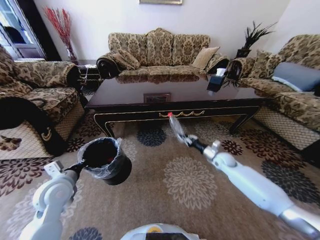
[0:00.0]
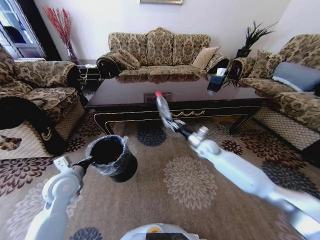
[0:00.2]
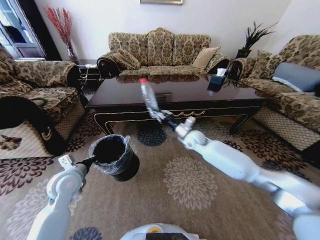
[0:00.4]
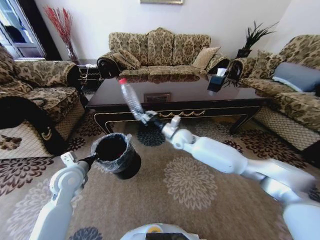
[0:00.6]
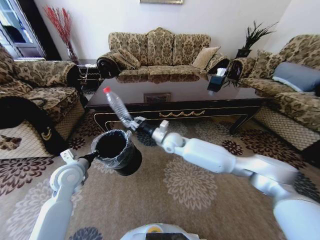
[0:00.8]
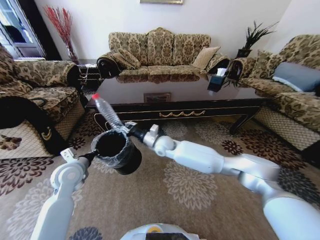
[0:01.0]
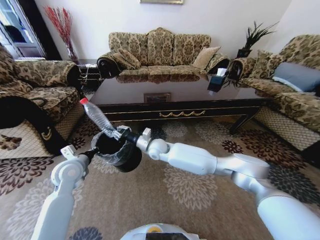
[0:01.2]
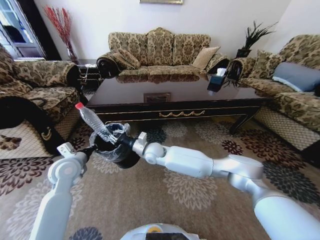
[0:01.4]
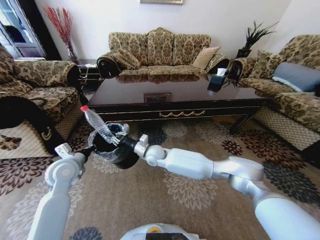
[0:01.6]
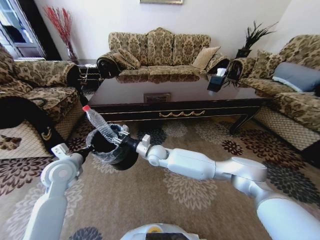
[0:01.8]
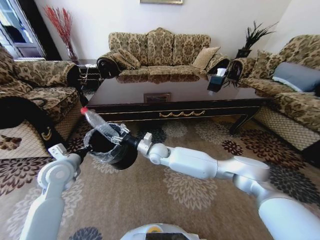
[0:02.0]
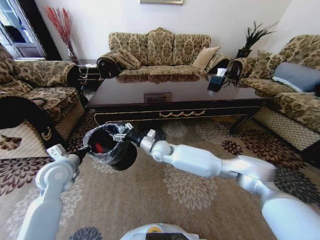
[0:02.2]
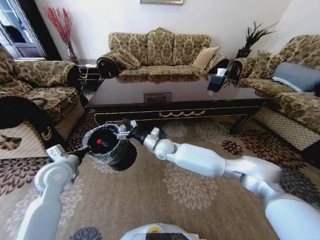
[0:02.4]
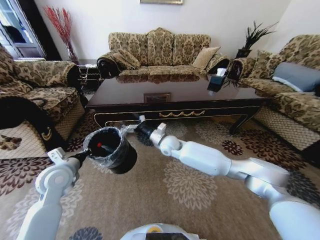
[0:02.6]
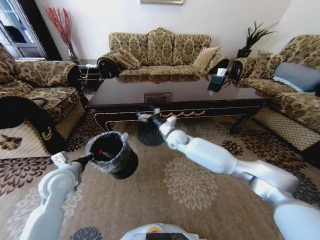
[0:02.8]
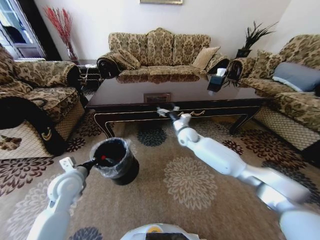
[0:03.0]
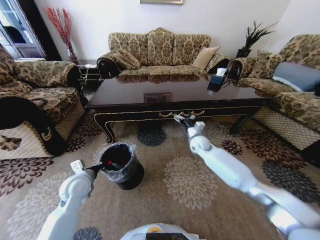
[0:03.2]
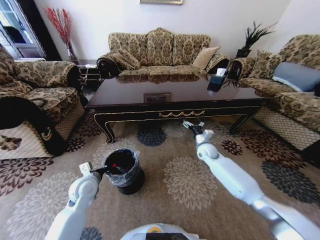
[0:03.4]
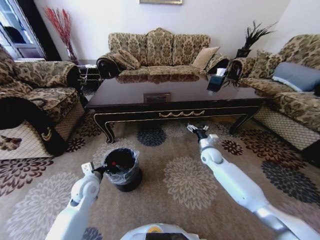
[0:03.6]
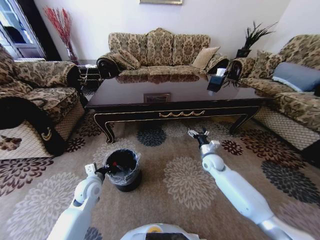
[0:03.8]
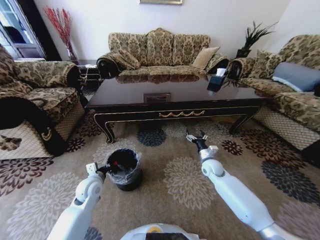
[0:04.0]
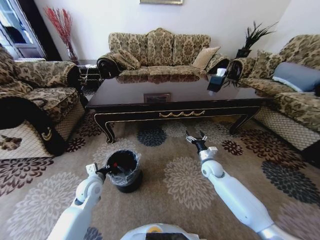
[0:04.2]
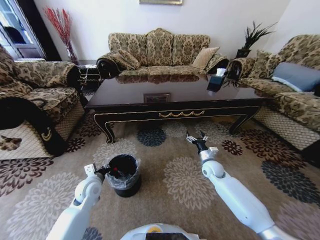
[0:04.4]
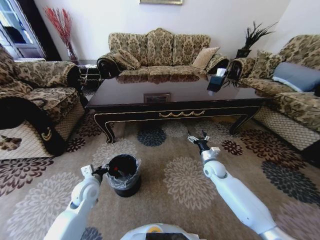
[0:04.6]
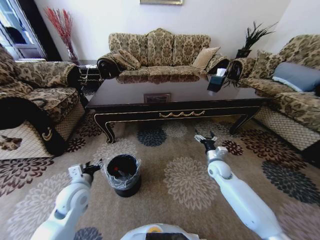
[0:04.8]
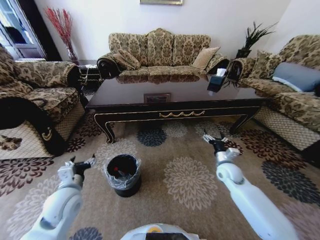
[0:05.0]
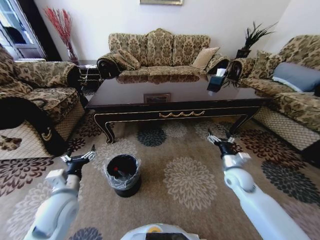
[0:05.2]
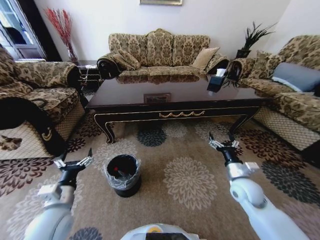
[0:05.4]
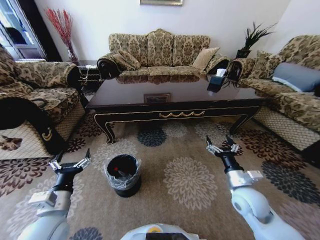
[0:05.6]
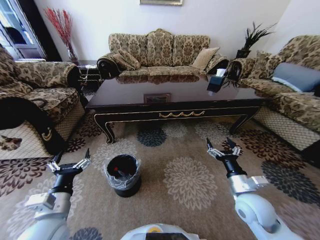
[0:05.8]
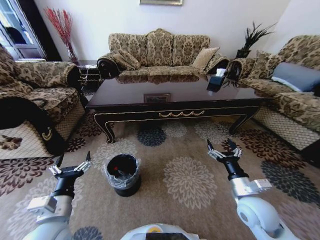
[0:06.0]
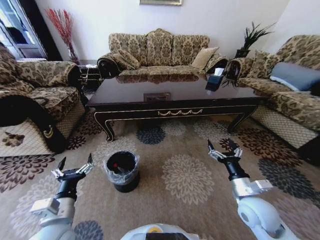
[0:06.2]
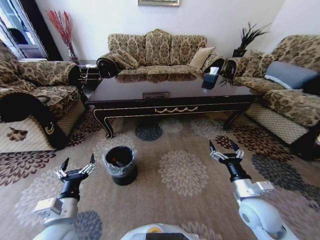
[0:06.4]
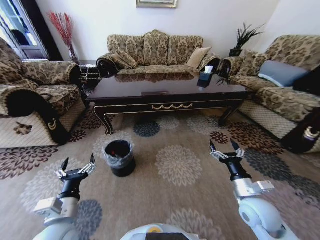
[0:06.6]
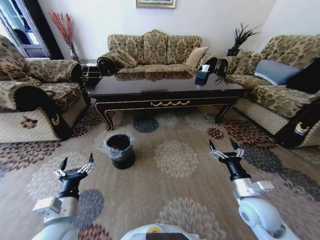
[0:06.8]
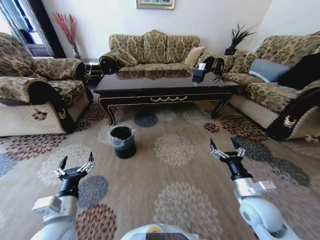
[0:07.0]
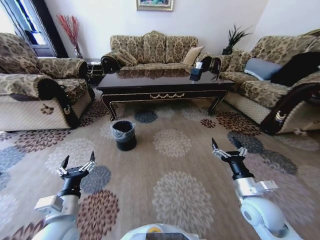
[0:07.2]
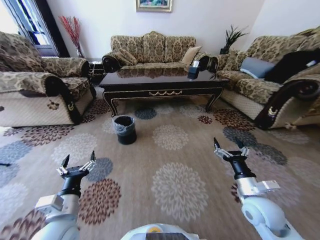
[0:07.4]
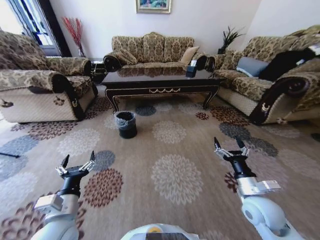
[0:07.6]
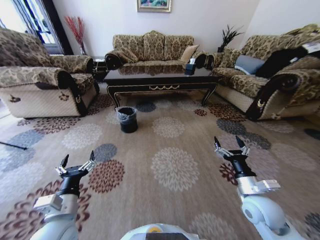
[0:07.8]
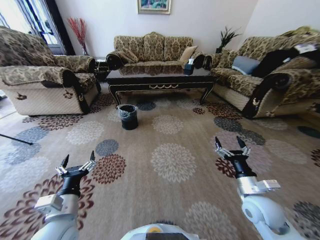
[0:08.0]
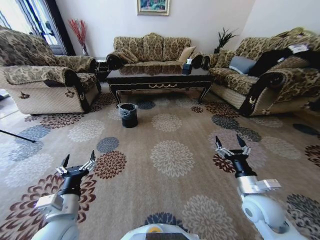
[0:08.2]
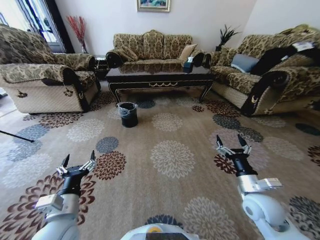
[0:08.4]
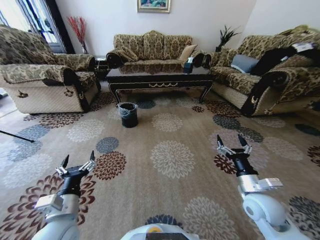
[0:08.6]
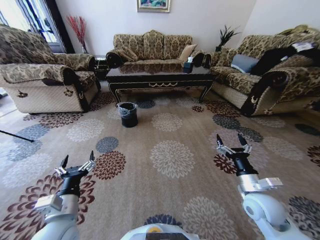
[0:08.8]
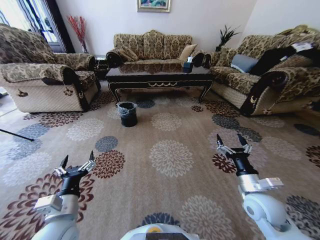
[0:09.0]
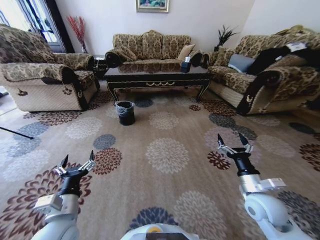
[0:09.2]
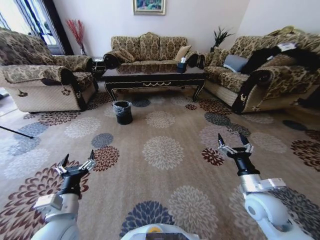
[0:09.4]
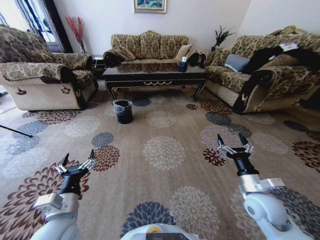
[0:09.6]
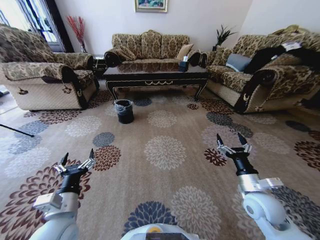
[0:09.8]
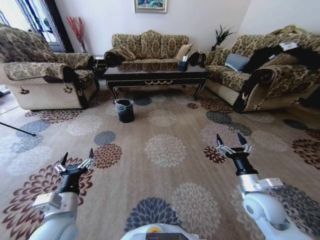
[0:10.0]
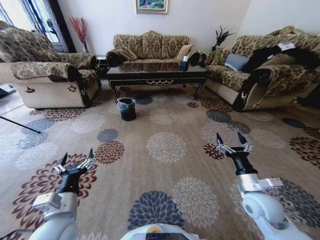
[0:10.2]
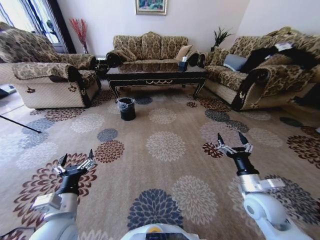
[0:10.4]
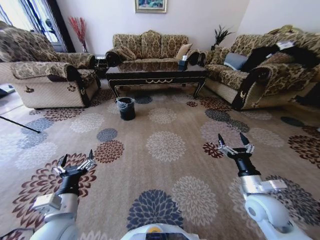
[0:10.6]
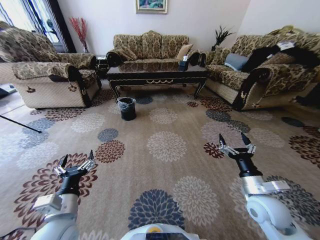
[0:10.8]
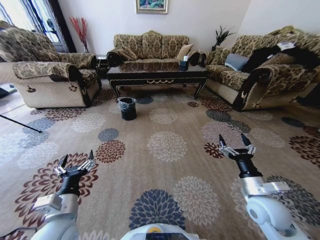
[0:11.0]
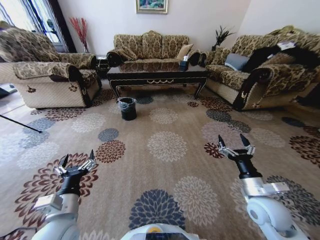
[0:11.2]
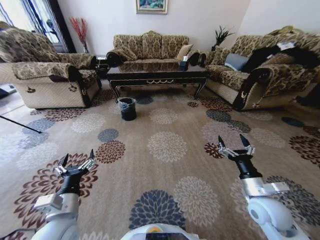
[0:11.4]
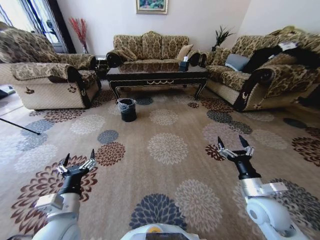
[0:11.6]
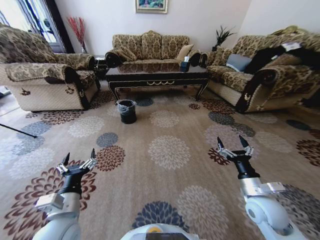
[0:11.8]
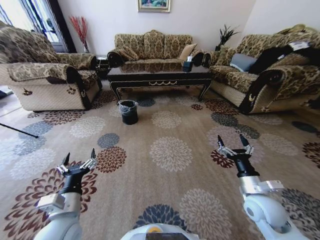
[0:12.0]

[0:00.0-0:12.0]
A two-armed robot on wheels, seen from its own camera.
Task of the whole recording: Move to the front of the table and pick up the trash from the floor, then place it into the trash bin.
0:00.0 to 0:01.6: The right gripper goes about 35 cm to the left. Meanwhile the left gripper travels forward by approximately 5 cm.
0:01.6 to 0:03.0: The left gripper shifts by some 5 cm, while the right gripper travels to the right and forward by approximately 20 cm, and opens its fingers.
0:03.0 to 0:04.4: The left gripper goes approximately 10 cm downward. The right gripper is displaced downward, to the right and backward by approximately 20 cm.
0:04.4 to 0:06.0: Both grippers move backward and upward, about 20 cm. The left gripper opens its fingers.

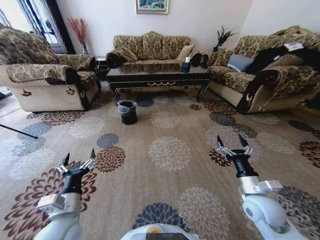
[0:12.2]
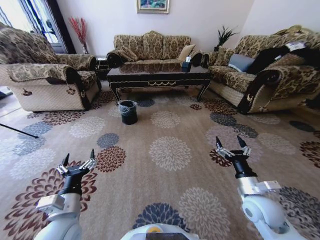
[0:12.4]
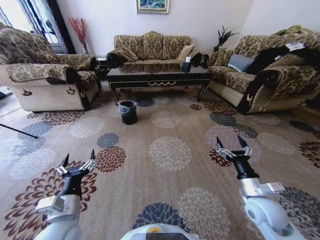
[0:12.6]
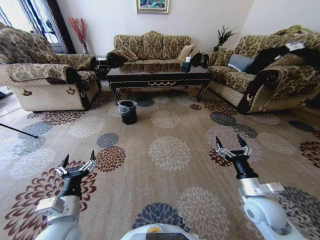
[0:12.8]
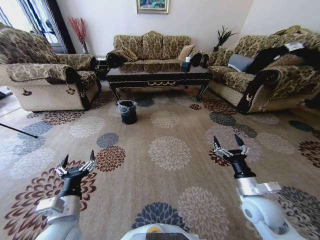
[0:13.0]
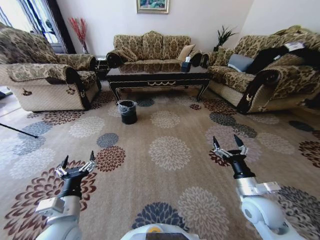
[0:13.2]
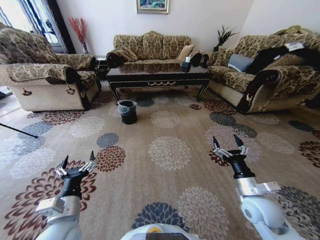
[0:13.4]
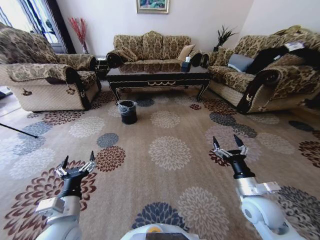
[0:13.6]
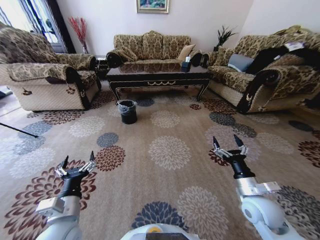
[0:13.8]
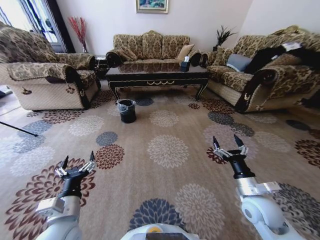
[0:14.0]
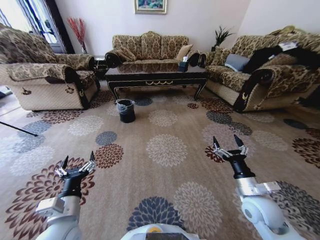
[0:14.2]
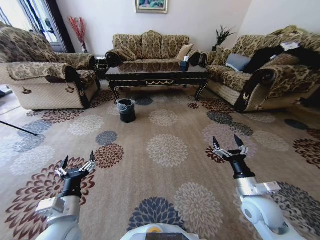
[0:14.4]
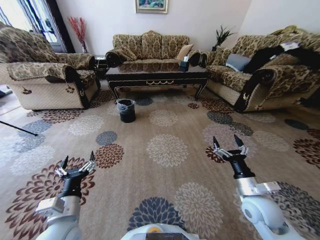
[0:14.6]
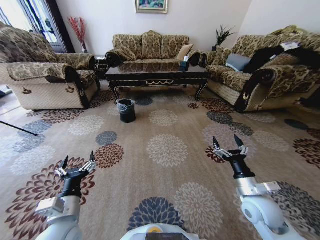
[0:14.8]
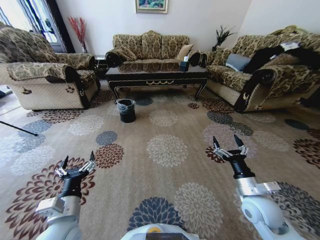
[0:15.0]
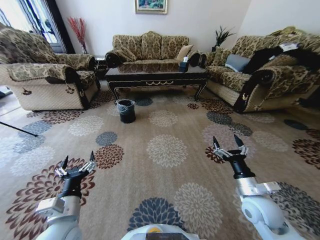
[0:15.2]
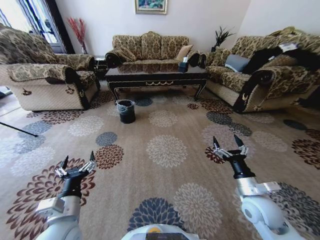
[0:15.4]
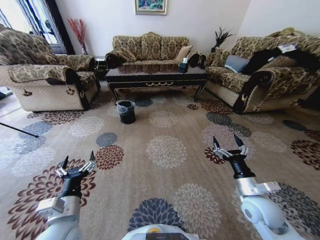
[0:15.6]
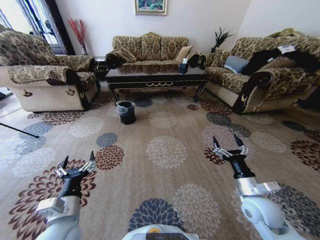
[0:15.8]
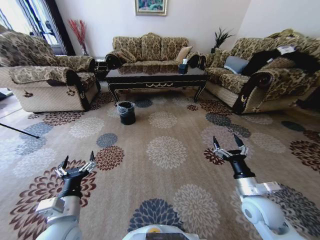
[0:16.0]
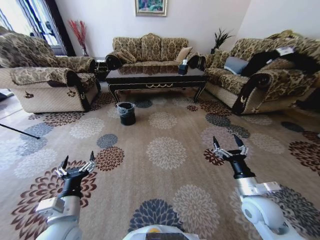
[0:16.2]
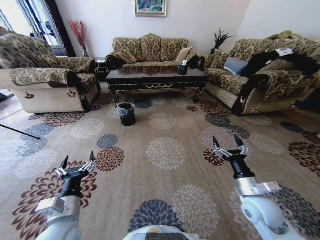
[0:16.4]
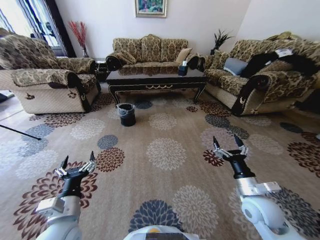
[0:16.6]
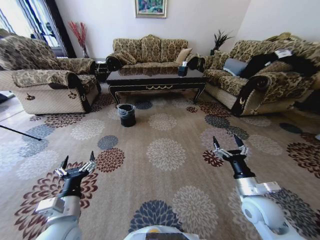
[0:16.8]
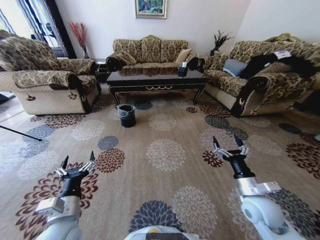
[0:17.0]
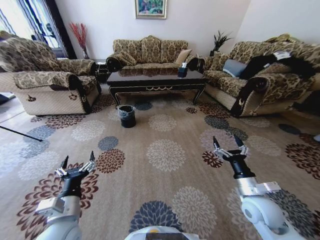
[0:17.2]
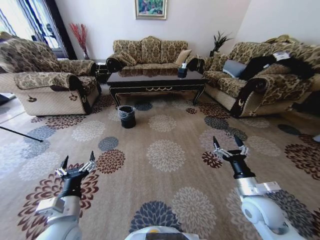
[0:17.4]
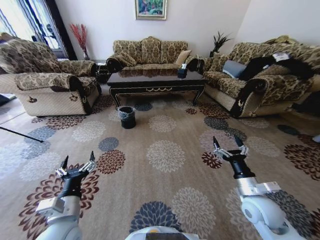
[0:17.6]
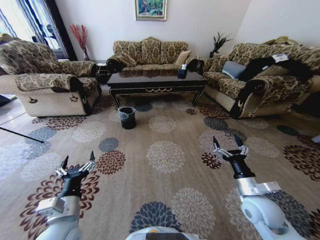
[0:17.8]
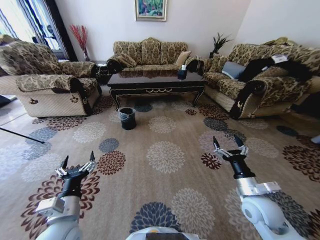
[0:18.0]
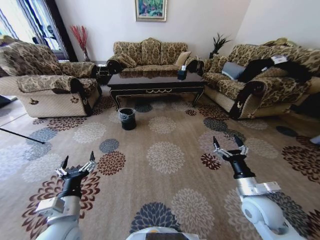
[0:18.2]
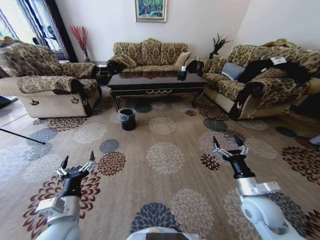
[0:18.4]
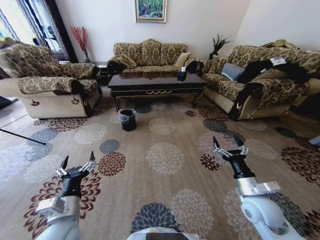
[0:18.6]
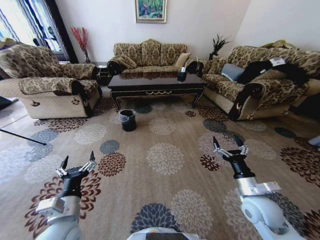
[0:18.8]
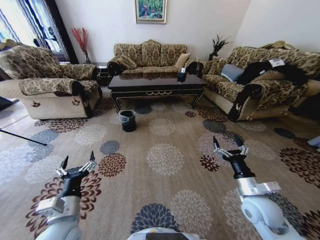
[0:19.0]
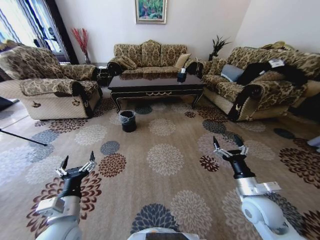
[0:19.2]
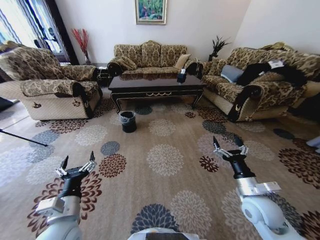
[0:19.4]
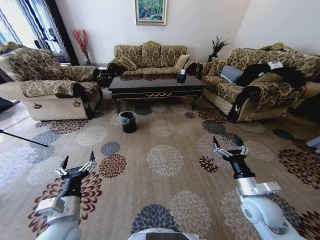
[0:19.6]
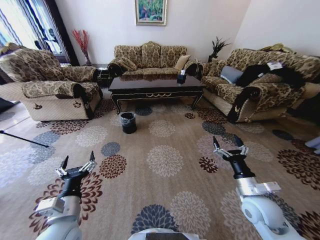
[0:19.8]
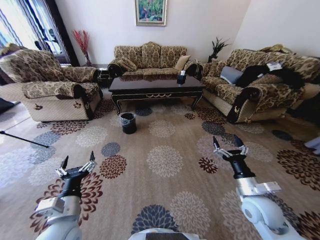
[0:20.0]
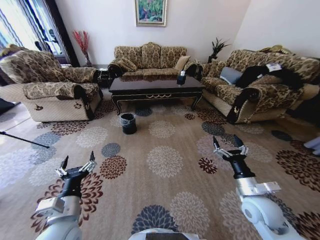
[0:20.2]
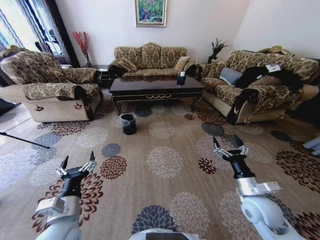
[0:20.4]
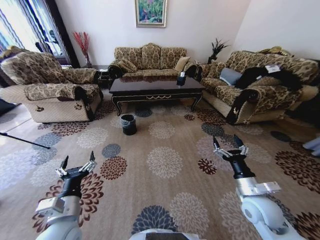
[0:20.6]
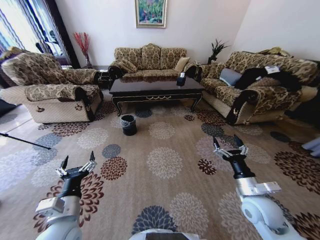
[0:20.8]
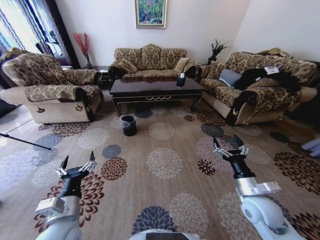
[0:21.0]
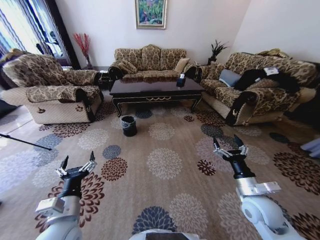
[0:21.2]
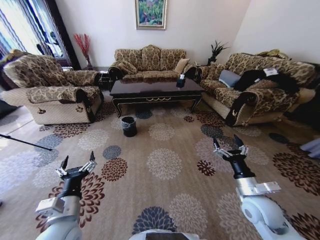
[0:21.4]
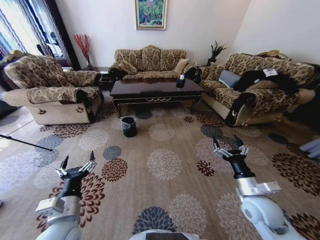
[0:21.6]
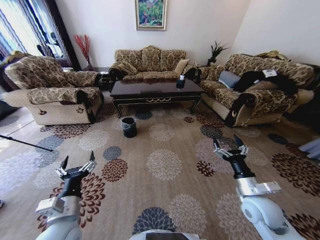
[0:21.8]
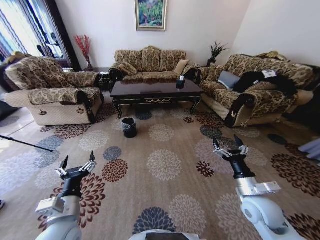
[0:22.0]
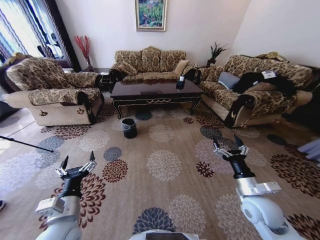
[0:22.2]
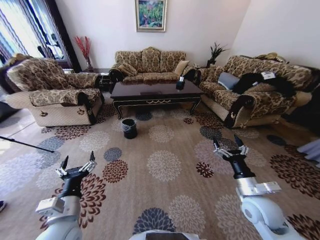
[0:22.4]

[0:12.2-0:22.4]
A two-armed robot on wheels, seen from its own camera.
Task of the whole recording: Move to the front of the table and pick up the trash from the floor, then place it into the trash bin.
0:12.2 to 0:15.2: The two grippers keep their place.
